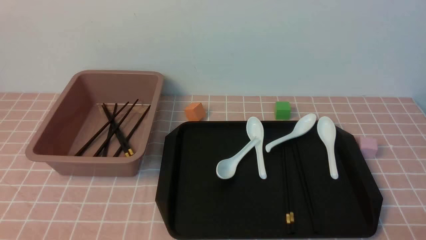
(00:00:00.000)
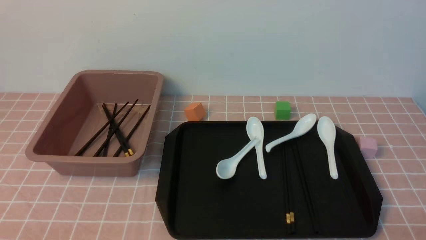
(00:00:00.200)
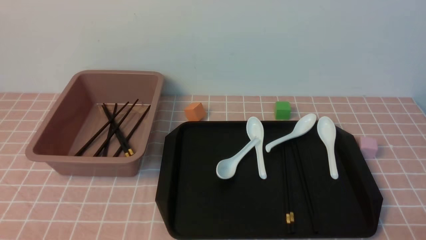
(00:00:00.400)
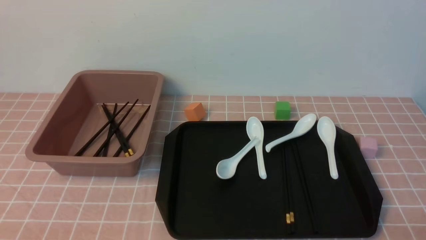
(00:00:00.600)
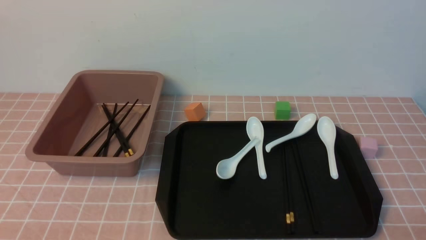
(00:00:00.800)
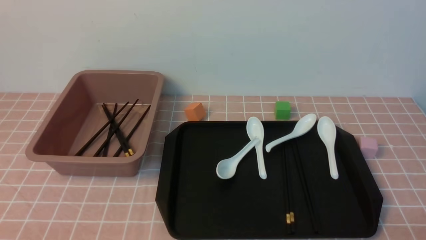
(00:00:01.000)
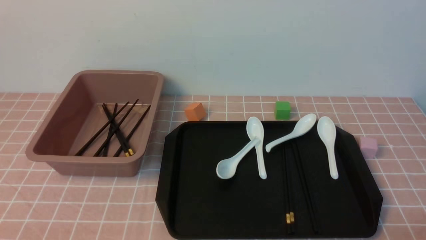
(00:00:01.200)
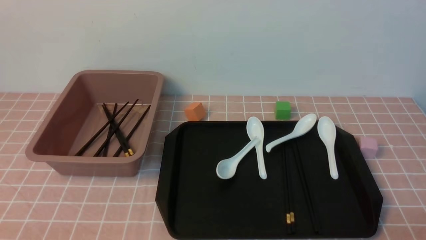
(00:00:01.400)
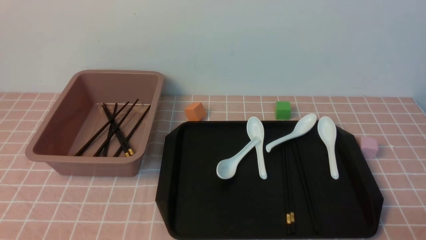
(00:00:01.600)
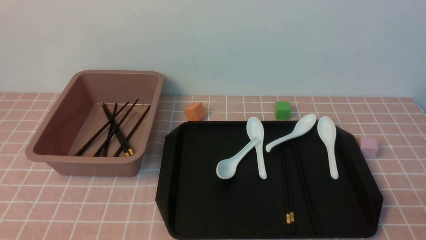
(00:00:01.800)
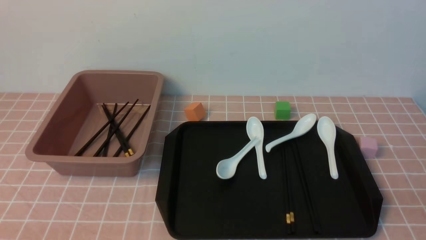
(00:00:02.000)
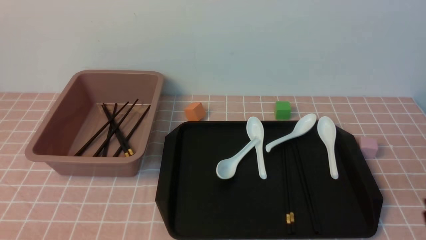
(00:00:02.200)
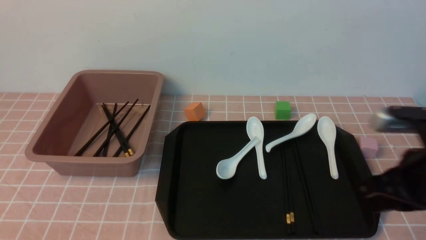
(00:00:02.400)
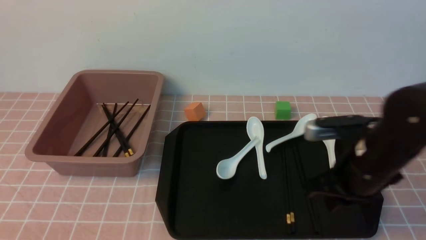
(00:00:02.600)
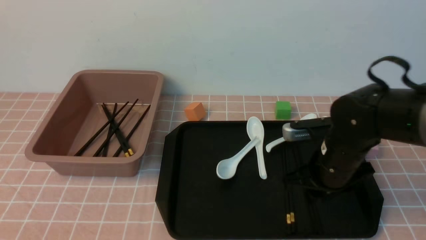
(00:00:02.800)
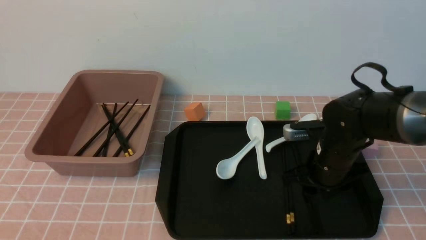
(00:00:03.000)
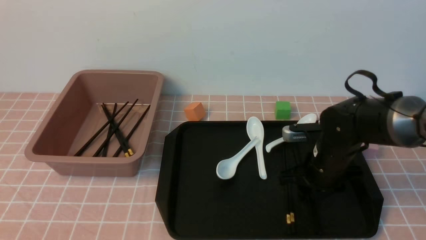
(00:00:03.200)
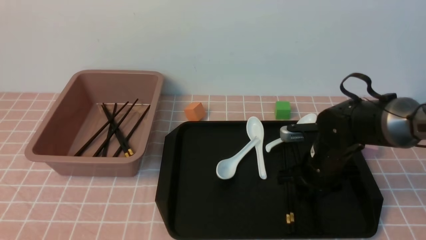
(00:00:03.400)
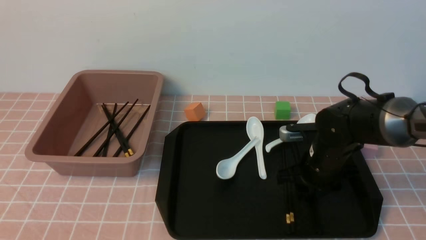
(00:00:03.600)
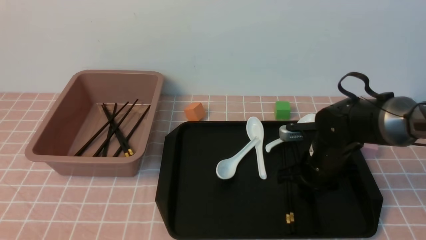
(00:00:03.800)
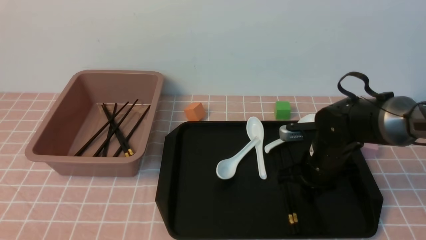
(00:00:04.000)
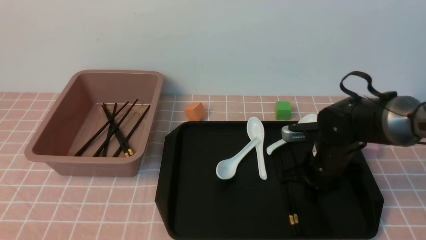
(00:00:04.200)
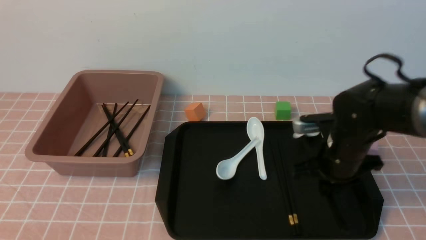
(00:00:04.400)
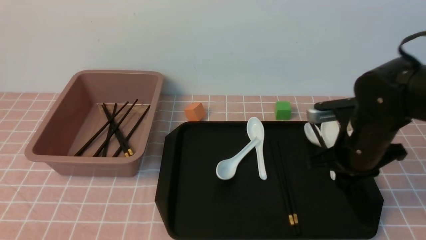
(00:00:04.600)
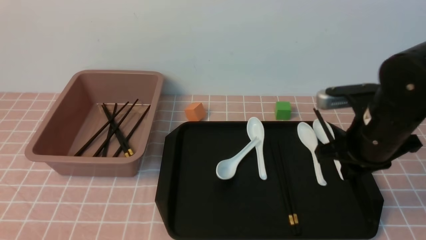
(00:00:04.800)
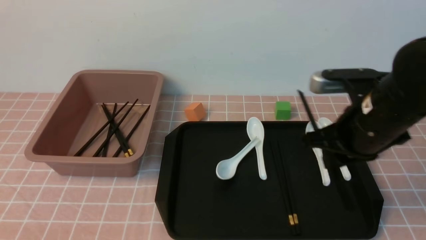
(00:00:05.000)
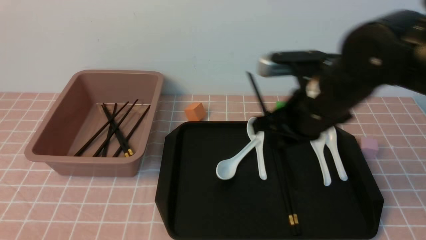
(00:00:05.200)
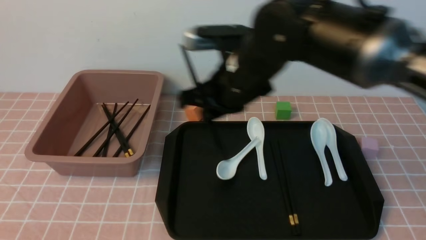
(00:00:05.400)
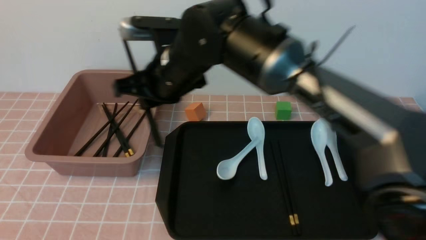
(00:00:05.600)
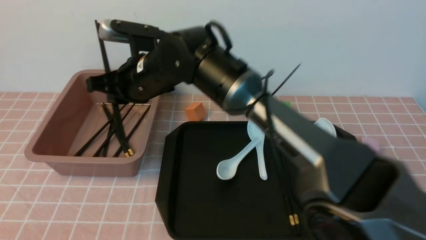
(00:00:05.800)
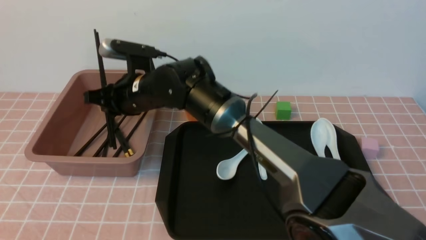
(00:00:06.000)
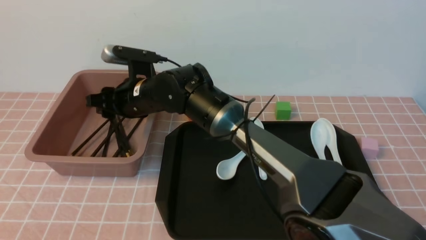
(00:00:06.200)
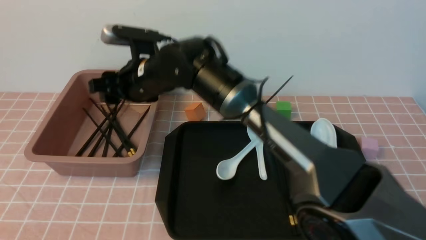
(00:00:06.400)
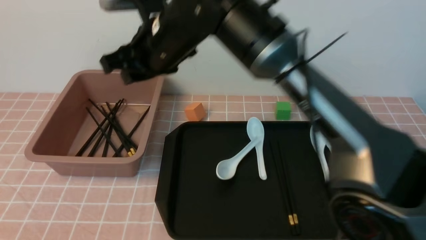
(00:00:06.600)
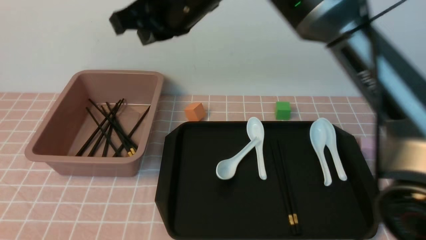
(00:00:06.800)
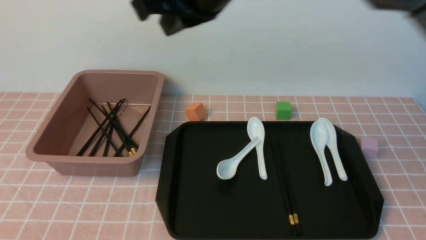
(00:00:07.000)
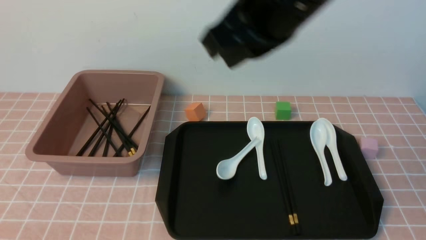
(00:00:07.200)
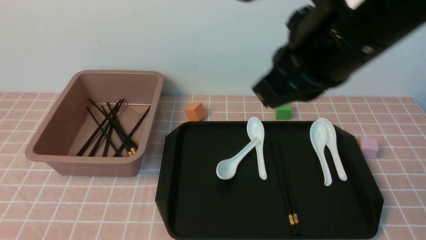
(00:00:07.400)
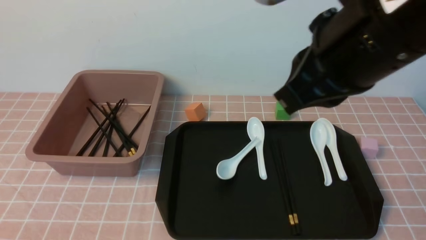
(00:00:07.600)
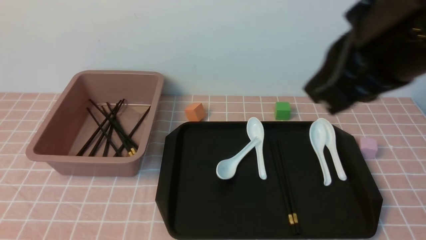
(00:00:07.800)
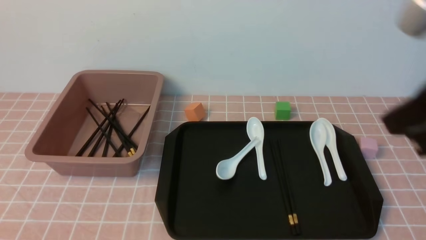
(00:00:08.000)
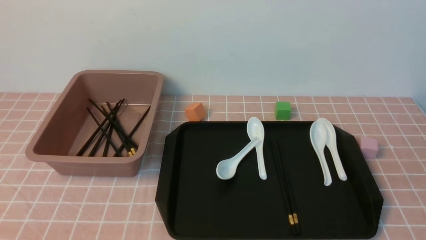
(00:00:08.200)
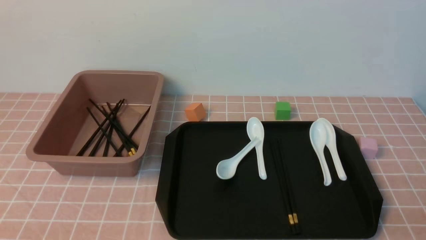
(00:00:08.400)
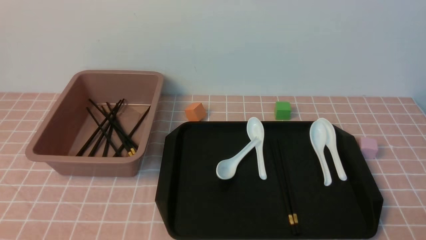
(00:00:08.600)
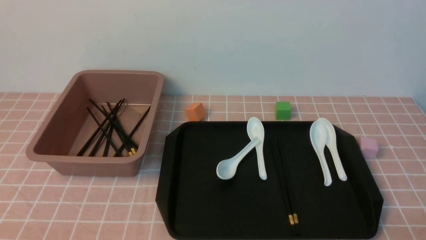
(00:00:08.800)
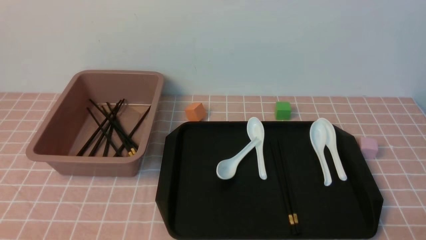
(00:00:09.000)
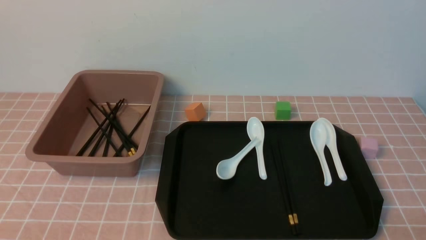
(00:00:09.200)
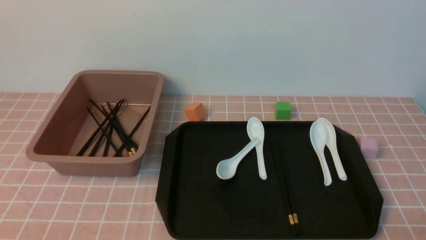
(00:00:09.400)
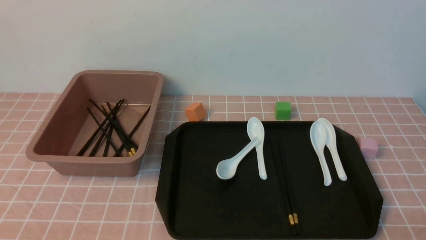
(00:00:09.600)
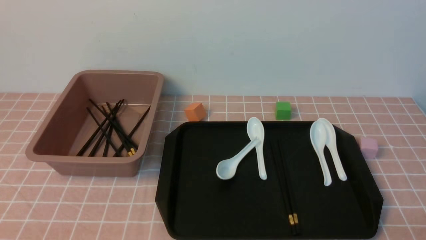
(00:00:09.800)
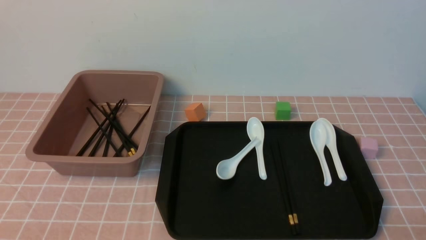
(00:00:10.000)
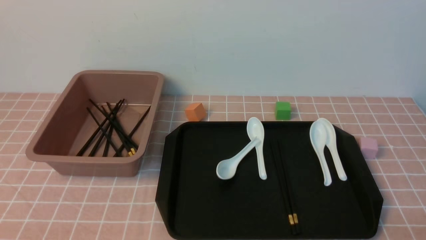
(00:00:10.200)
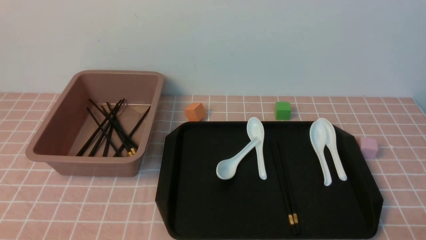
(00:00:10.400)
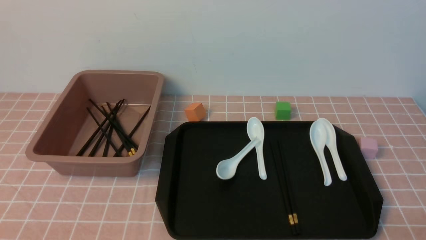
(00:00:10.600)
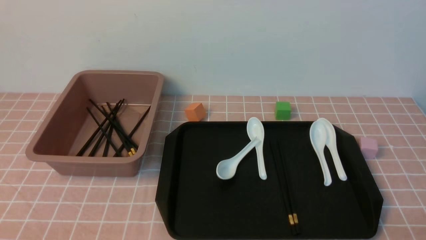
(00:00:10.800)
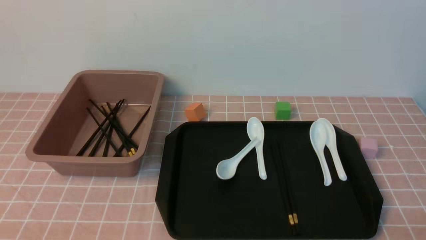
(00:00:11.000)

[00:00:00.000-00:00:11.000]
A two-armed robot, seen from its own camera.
Step, 00:00:00.000 to 00:00:04.600: use the right arm to grab a pair of chopsticks.
Step, 00:00:04.800 to 00:00:06.200: use the right arm to put the chopsticks into the lunch box.
00:00:01.600 to 00:00:03.200: The right gripper heads forward and to the left, covering some 30 cm, and opens.
00:00:03.200 to 00:00:04.800: The right gripper is displaced upward and backward by about 15 cm, and closes its fingers.
00:00:04.800 to 00:00:06.200: The right gripper shifts some 30 cm to the left and forward, and opens up.
00:00:06.200 to 00:00:07.800: The right gripper travels to the right, backward and upward by roughly 40 cm, and closes up.
00:00:07.800 to 00:00:09.400: The right gripper shifts about 35 cm downward, to the right and backward.
00:00:09.400 to 00:00:11.000: The two grippers keep their place.
